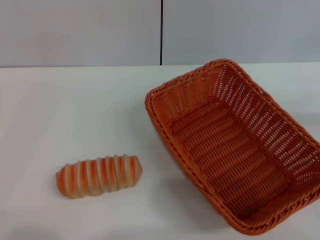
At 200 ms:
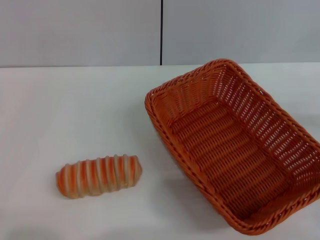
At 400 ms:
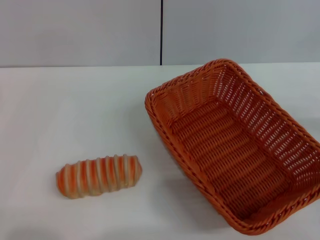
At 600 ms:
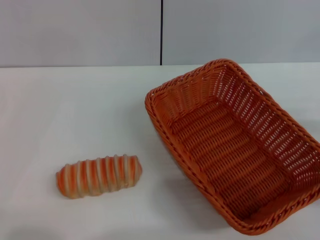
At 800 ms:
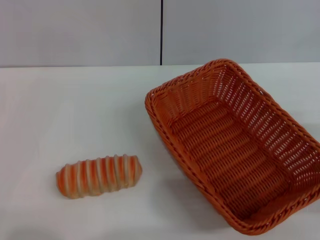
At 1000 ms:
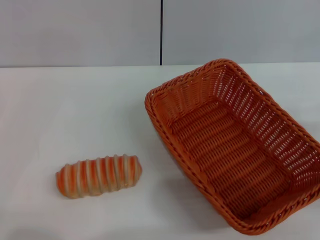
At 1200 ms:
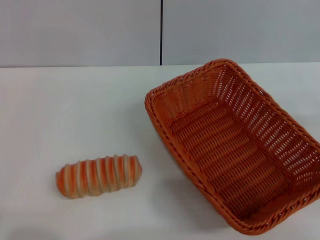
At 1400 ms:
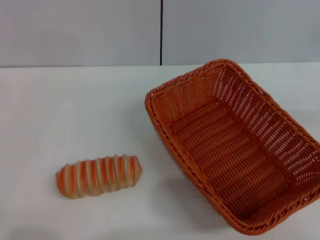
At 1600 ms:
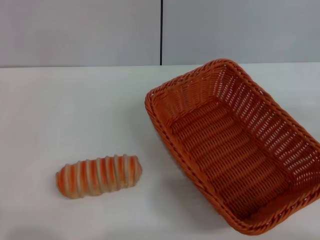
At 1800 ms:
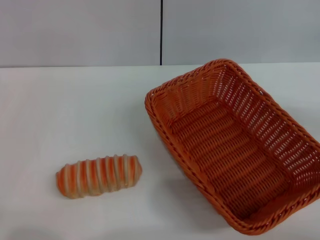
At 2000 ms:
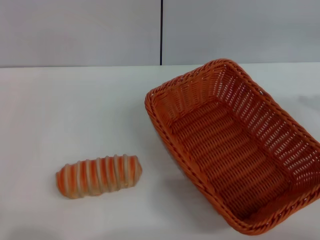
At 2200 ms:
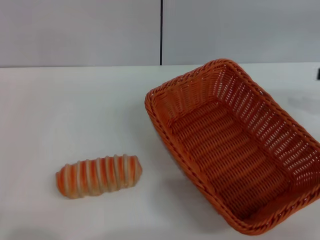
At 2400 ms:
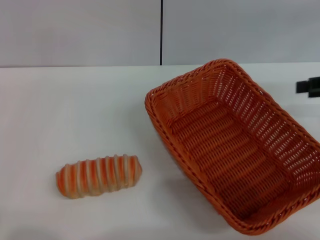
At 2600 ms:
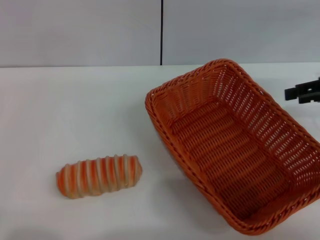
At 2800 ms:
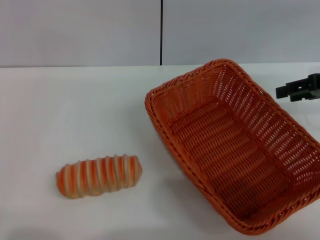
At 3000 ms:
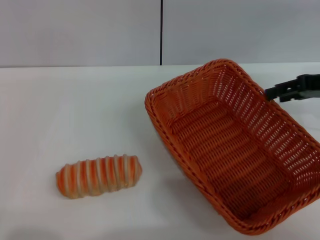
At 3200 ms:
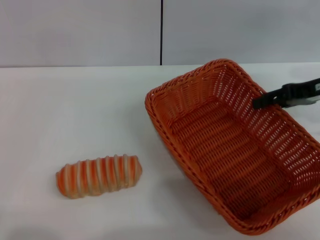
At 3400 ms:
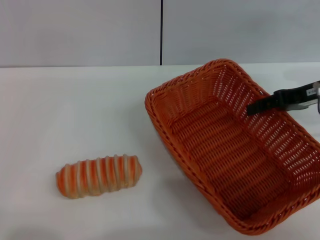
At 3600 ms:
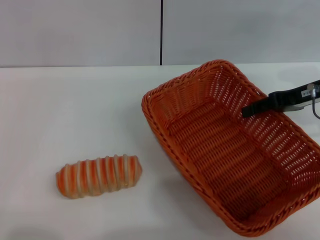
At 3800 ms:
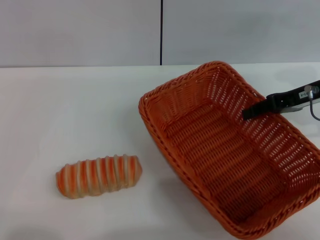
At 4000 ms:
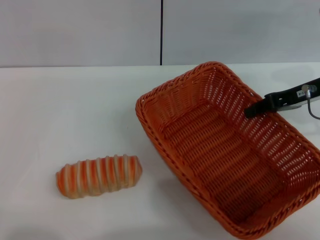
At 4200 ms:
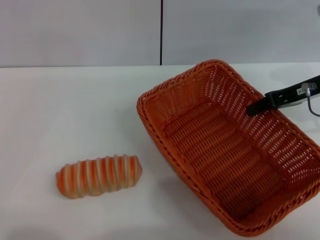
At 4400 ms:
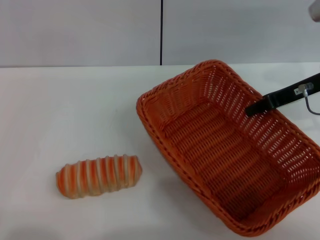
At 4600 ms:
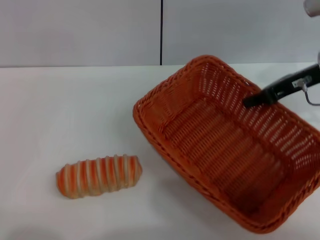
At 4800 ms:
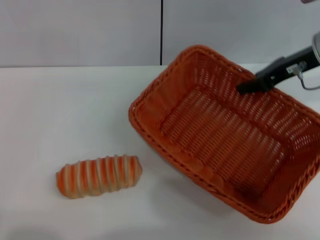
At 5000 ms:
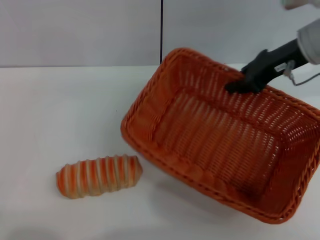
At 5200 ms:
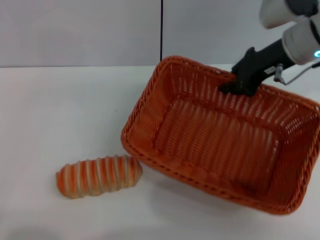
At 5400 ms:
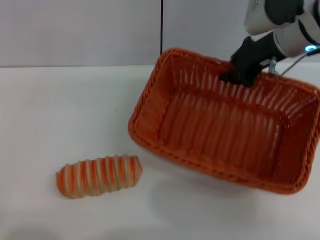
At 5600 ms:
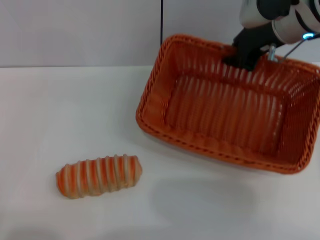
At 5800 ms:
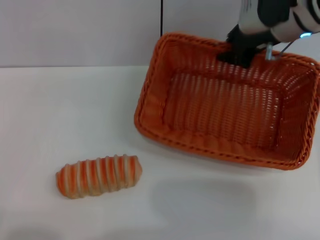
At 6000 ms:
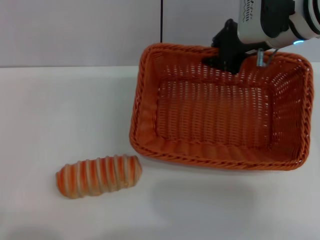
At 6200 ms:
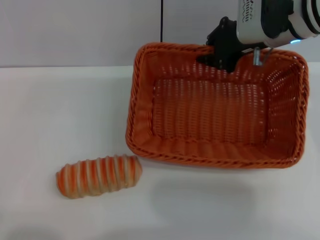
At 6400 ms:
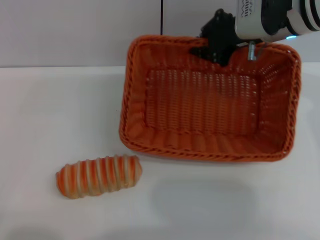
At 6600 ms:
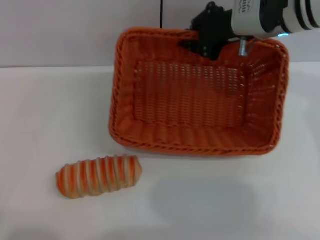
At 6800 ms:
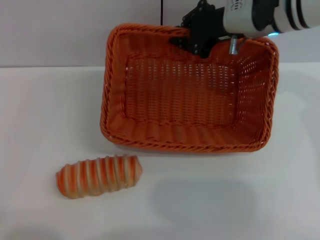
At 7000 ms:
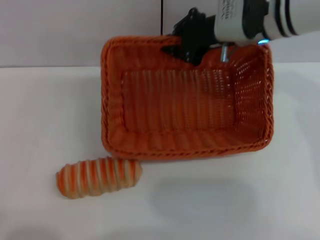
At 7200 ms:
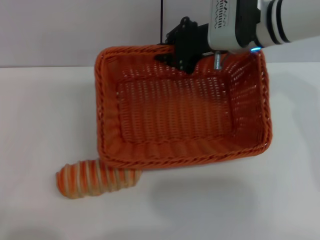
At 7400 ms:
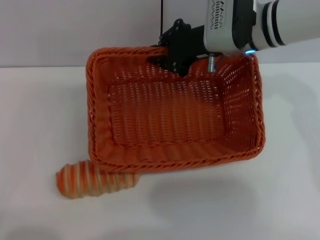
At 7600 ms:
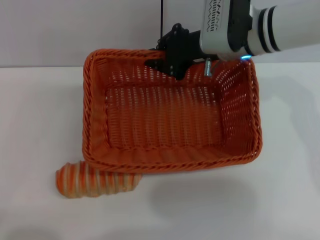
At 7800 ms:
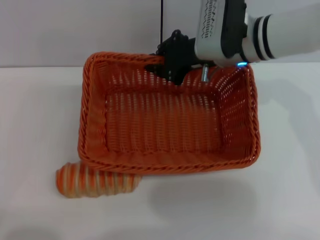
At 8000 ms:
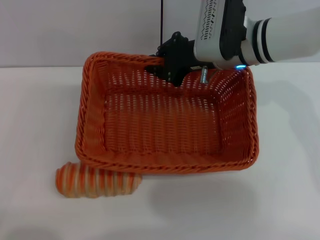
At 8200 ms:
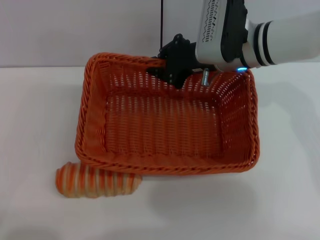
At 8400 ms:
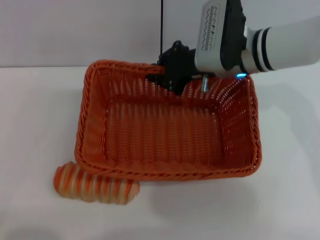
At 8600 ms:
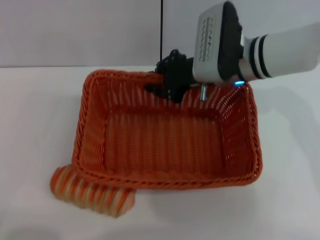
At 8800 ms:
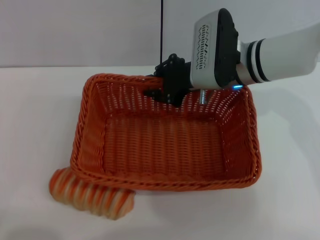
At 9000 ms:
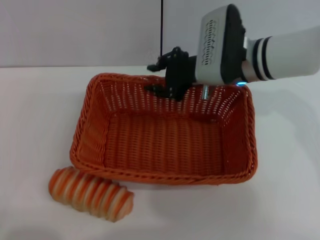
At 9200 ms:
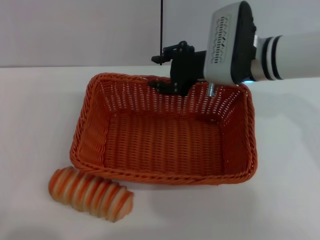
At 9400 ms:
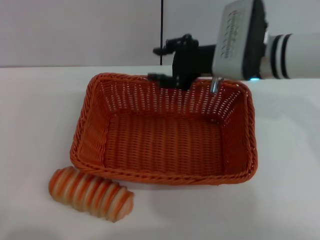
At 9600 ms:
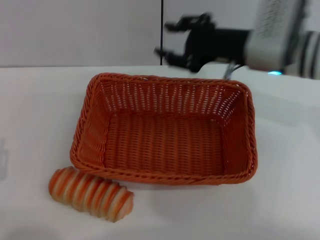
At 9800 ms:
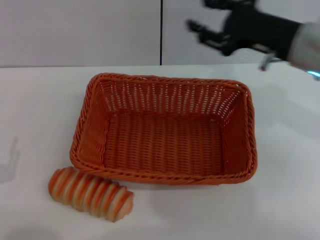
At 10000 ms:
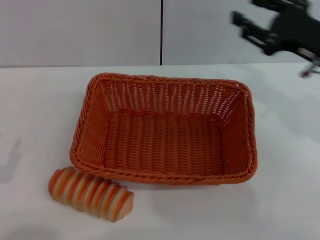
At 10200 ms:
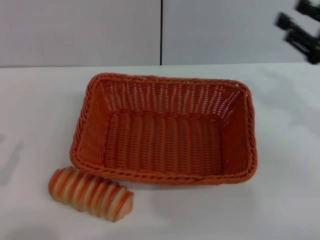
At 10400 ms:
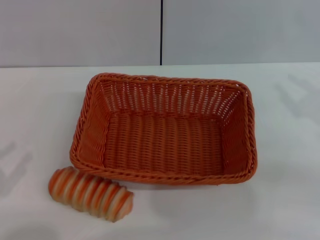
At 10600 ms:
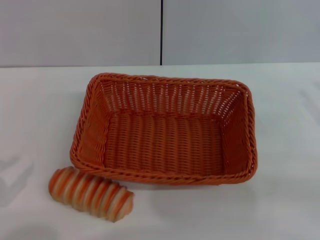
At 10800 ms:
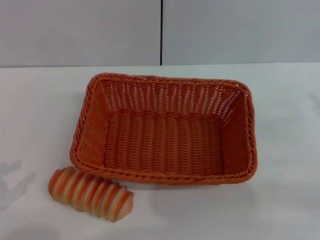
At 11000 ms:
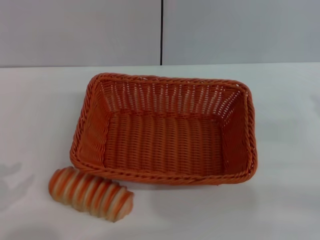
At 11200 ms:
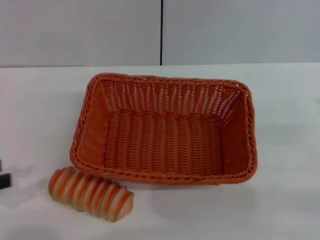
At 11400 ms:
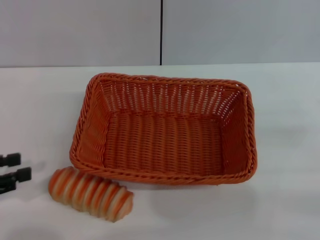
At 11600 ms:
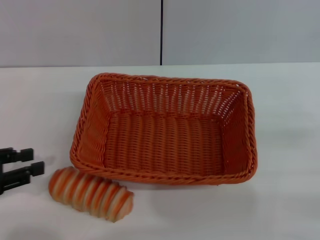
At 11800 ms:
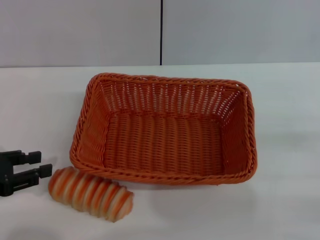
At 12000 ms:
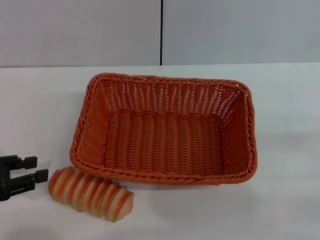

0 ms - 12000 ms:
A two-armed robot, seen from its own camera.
Step, 0 ms - 5800 ms: Pick up the light basket with the right gripper.
Step, 6000 ms - 9400 ms: Place the light basket in the center of view with the right gripper.
1600 ms - 3000 ms: The right gripper shifts roughly 15 cm to the left and forward.
3000 ms - 4400 ms: The right gripper goes about 5 cm to the left, and closes its fingers.
4400 ms - 6000 ms: The right gripper moves to the left, roughly 10 cm.
6000 ms - 7600 ms: The right gripper moves to the left, some 5 cm.
9000 ms - 10400 ms: The left gripper heads upward and to the left, covering some 10 cm, while the right gripper goes approximately 25 cm to the right and backward, and opens.
10400 ms - 12000 ms: The left gripper heads forward, covering about 10 cm.

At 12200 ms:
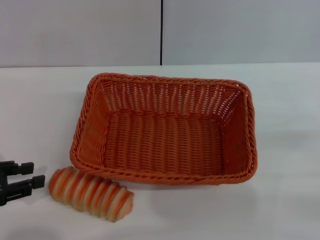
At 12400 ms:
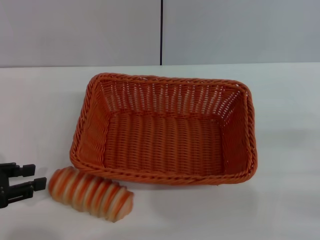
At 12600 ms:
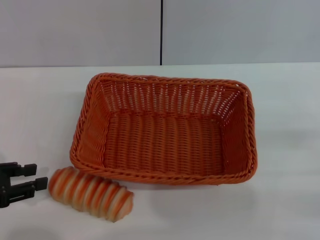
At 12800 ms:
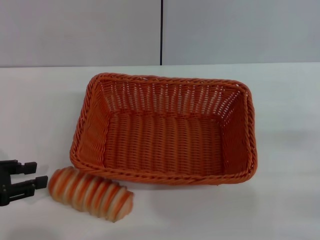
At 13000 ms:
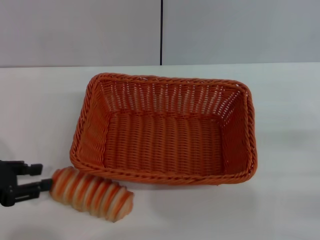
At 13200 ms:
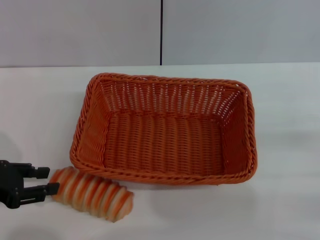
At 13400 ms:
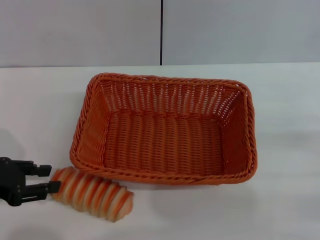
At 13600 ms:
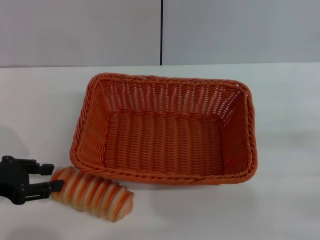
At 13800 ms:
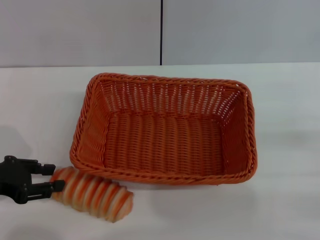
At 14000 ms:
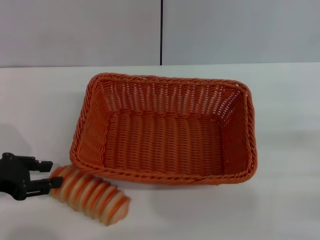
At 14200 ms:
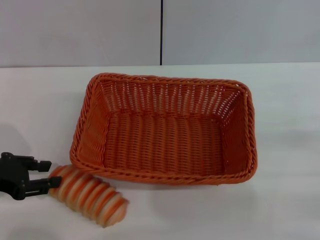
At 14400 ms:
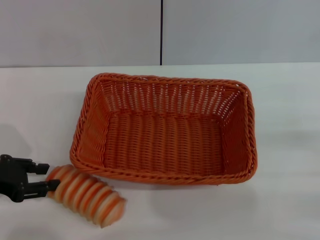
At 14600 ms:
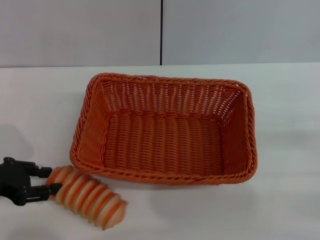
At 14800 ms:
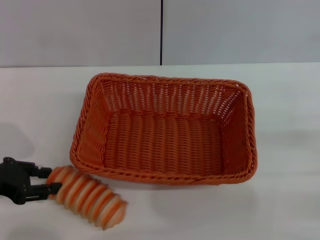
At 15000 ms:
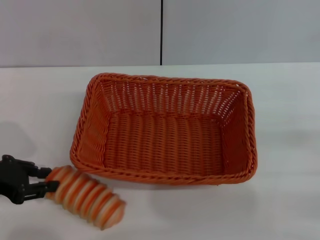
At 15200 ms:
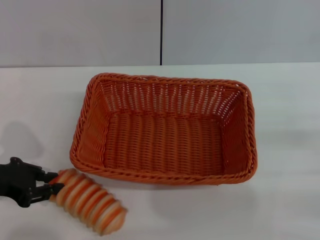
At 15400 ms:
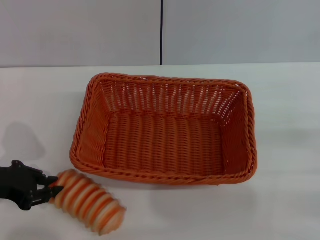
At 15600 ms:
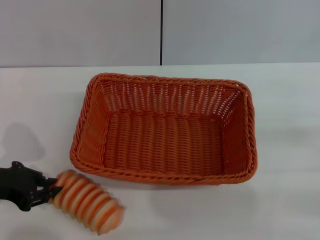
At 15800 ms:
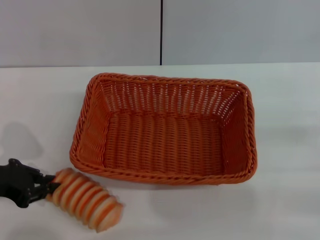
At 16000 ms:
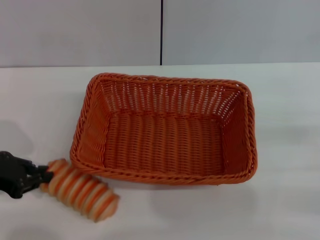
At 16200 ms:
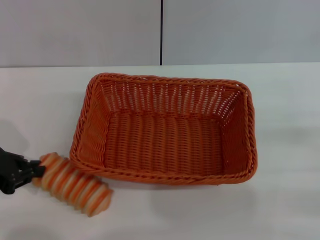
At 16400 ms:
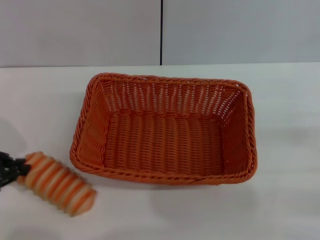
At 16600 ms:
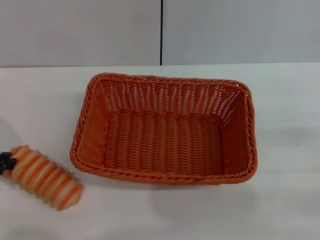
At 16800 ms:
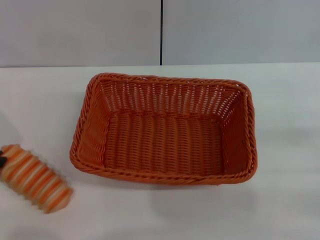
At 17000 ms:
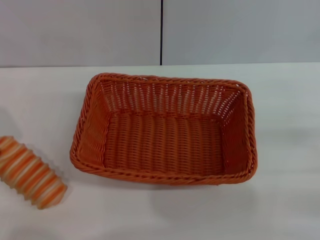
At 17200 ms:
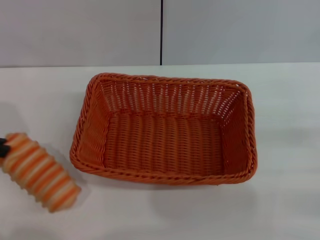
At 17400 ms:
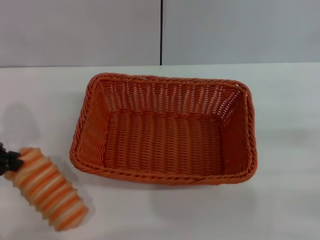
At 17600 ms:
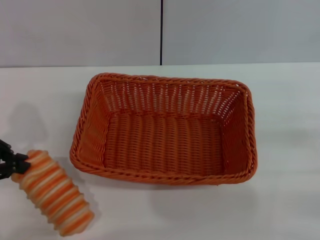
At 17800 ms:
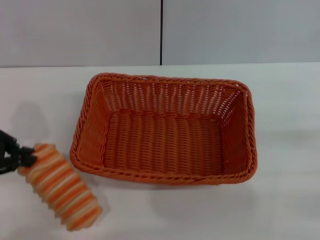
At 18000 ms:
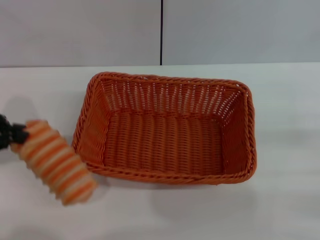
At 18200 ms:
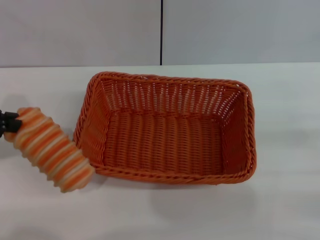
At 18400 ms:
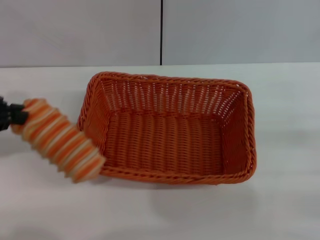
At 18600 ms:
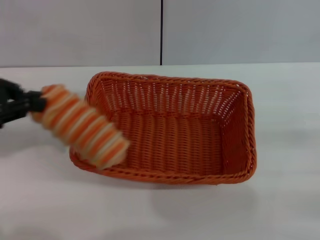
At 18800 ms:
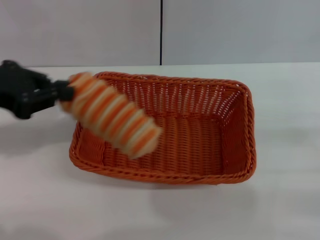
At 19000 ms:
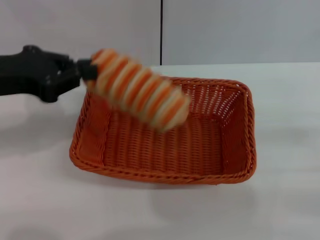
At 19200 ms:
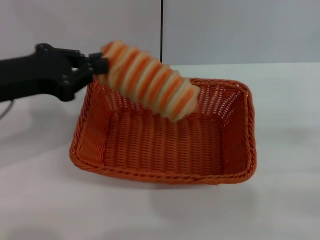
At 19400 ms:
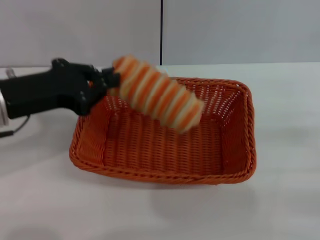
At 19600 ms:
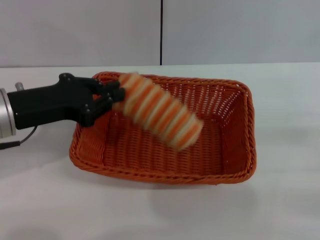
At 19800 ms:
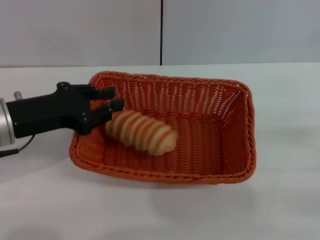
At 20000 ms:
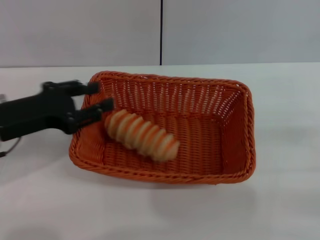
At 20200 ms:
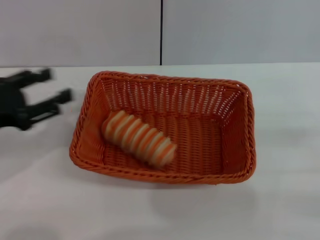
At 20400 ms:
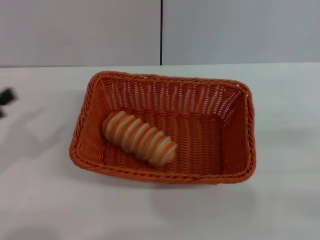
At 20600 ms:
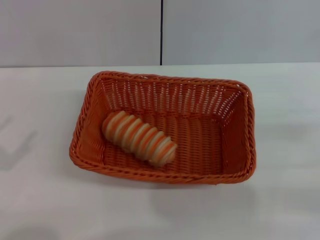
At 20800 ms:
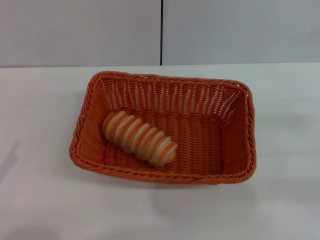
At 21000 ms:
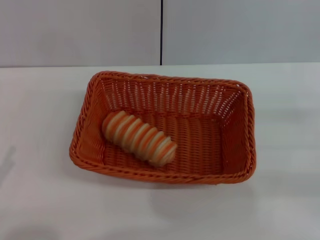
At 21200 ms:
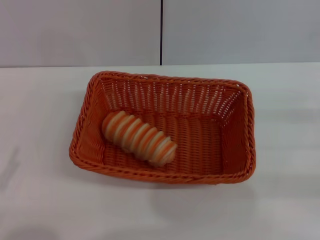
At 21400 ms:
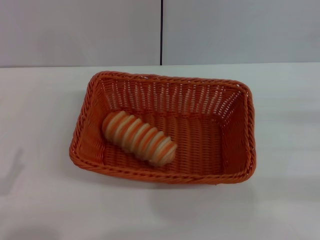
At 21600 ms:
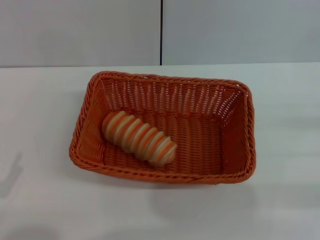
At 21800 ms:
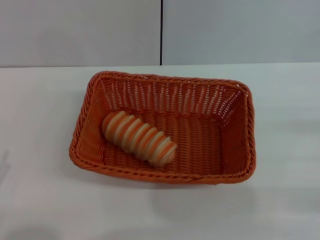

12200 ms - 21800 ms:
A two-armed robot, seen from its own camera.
Step, 12200 ms - 18000 ms: Pick up the long bread with the left gripper.
Step, 18200 ms - 20400 ms: Place the long bread into the light basket with the left gripper.
12200 ms - 13800 ms: The grippers stay close to where they were, moving slightly.
13800 ms - 15400 ms: There are only small adjustments of the grippers.
15400 ms - 17000 ms: The left gripper shifts roughly 10 cm upward.
17000 ms - 18600 ms: The left gripper changes place by roughly 5 cm.
18600 ms - 20200 ms: The left gripper moves downward, approximately 10 cm, and opens.
20200 ms - 21800 ms: The left gripper travels backward and downward by approximately 15 cm, and opens up.
